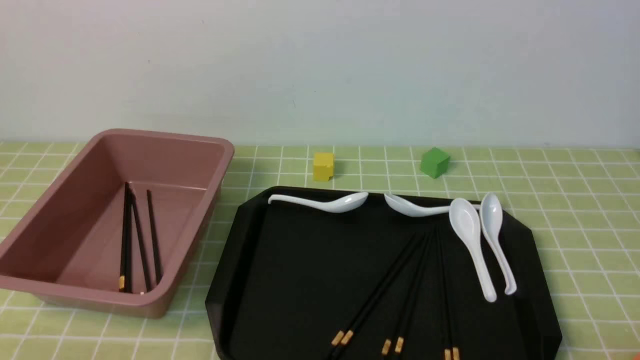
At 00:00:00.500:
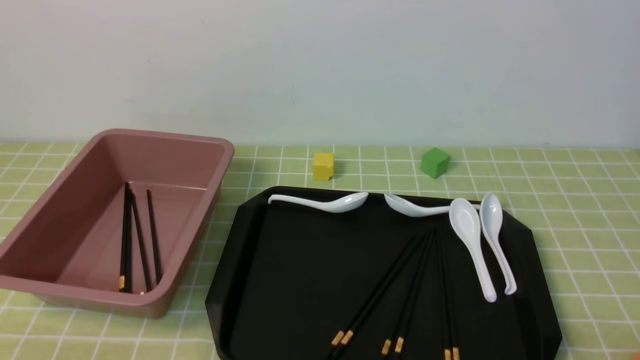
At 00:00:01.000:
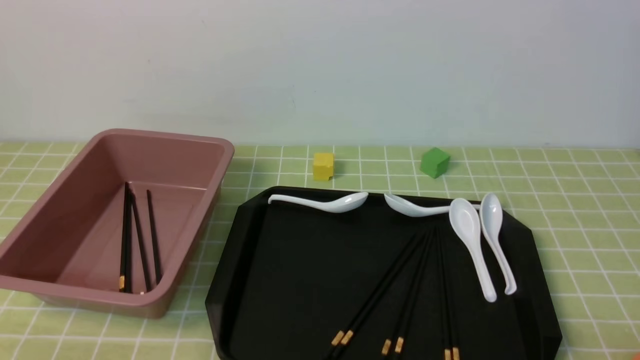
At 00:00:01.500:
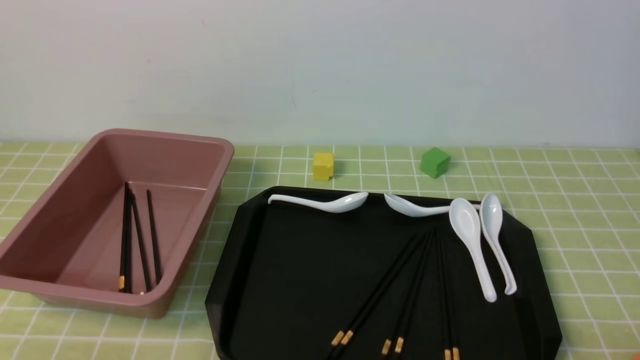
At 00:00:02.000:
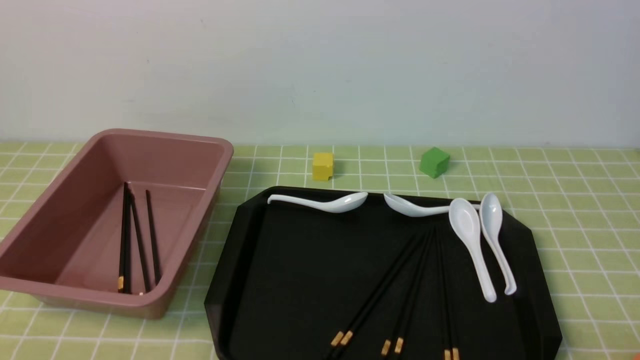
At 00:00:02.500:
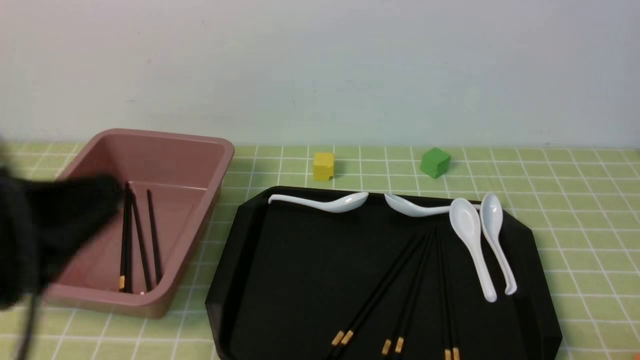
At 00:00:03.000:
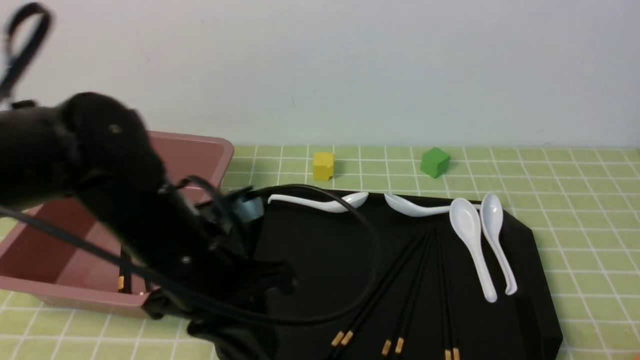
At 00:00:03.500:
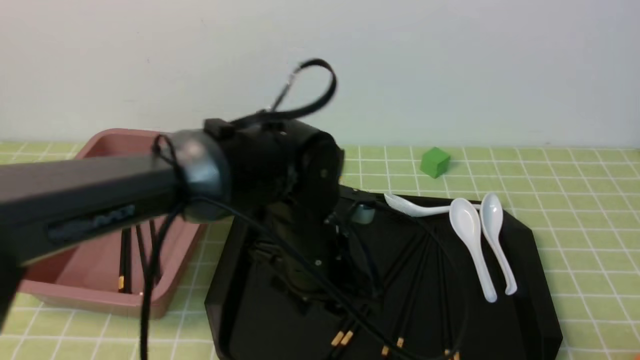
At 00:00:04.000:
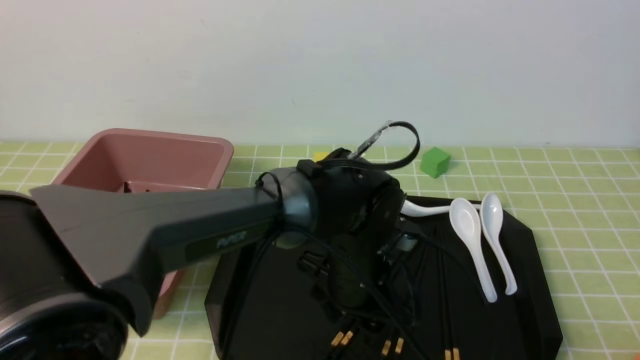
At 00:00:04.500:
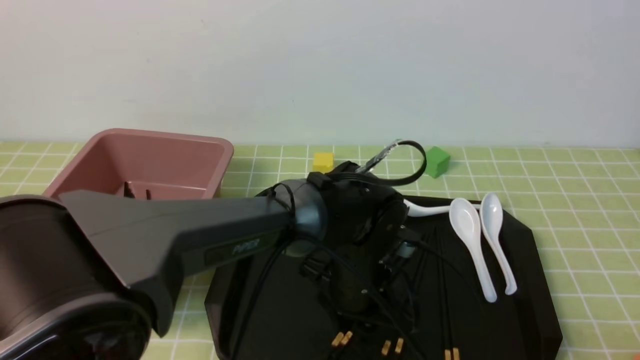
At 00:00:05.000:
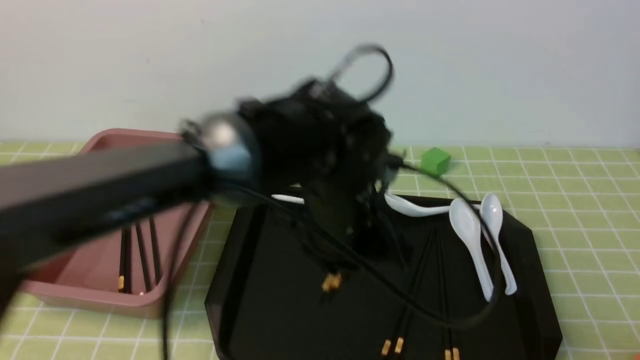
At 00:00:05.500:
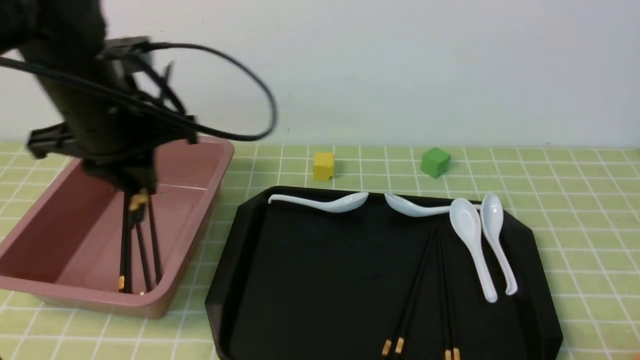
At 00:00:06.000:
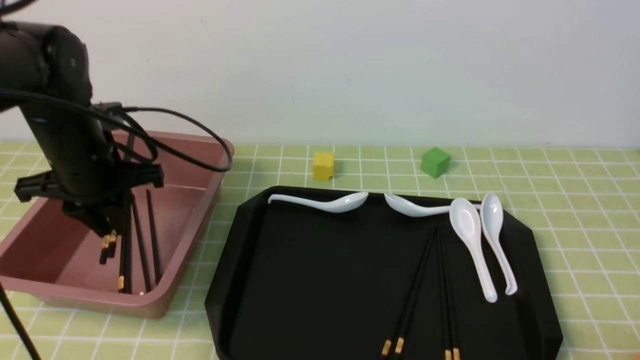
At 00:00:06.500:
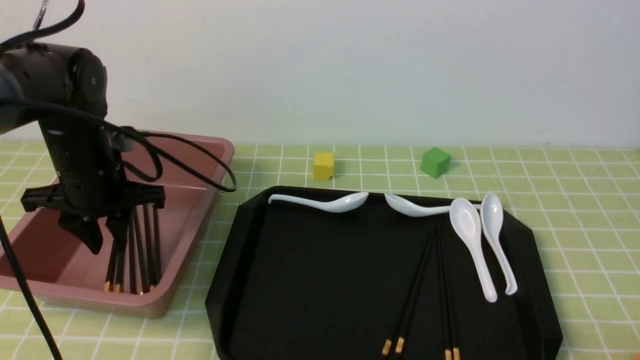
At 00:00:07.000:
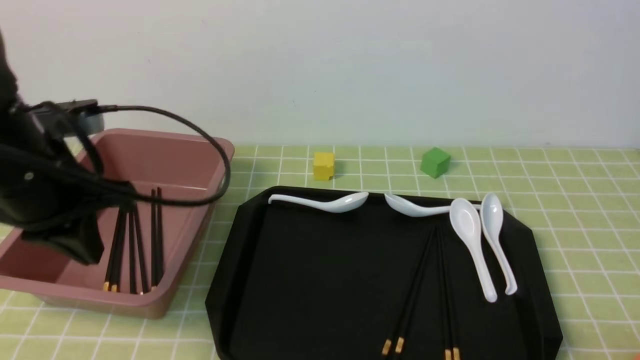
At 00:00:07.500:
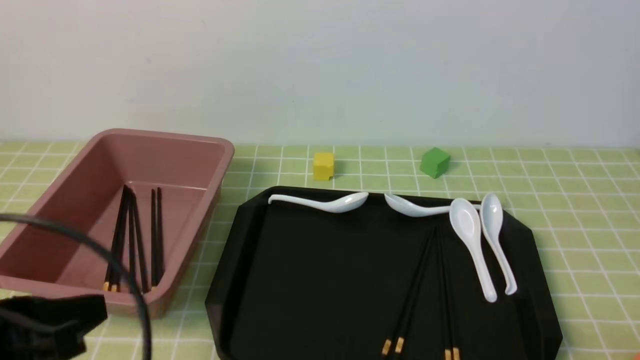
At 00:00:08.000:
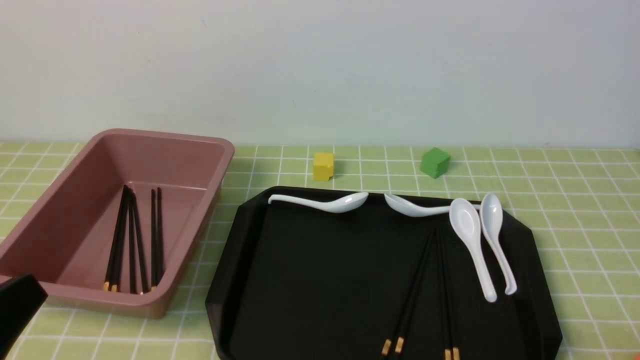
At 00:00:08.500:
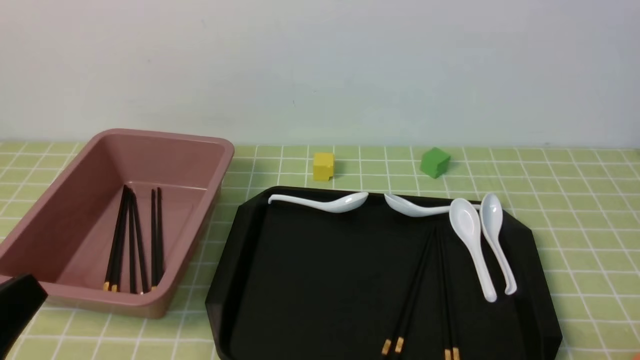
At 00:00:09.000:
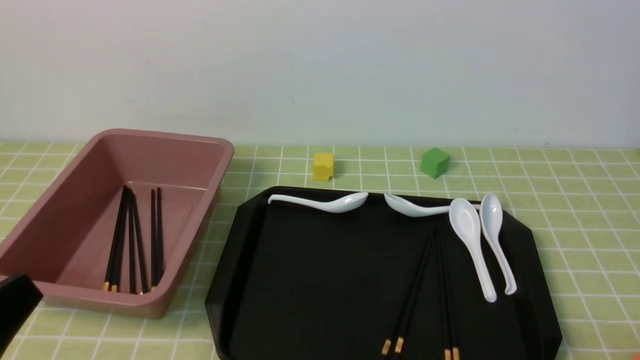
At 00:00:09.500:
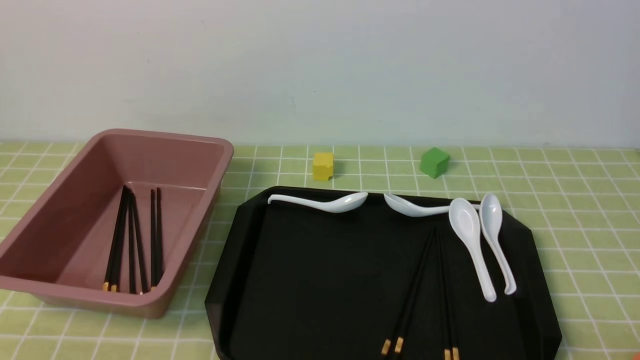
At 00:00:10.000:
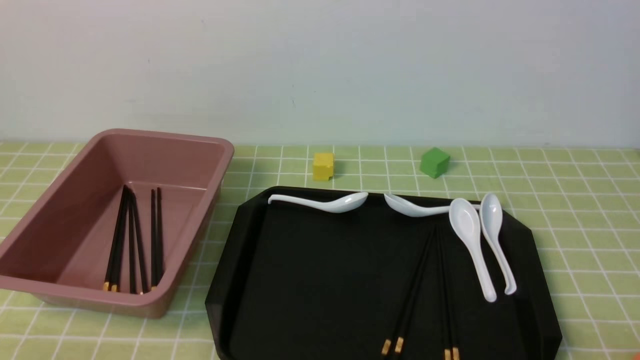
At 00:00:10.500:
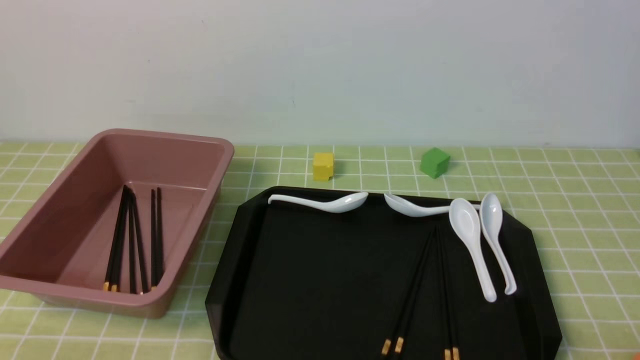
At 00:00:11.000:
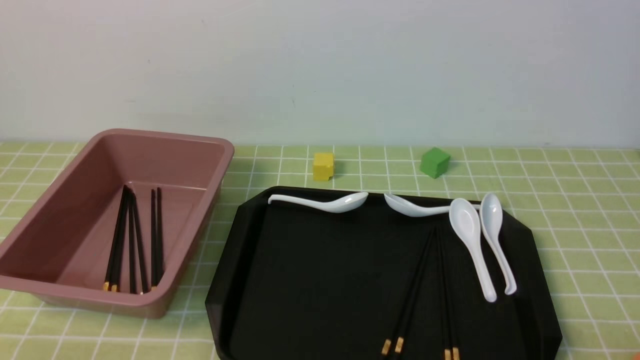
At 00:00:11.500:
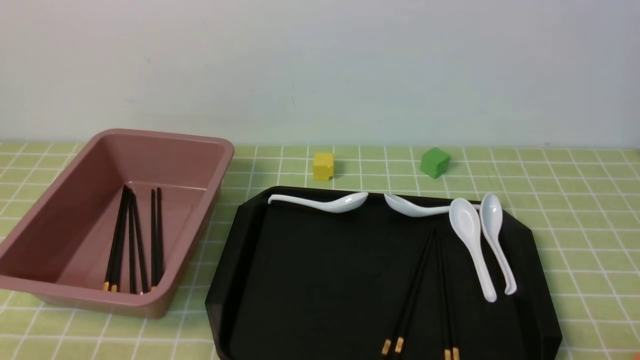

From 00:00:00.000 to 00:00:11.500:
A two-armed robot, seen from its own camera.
Step, from 00:00:00.000 to 00:00:05.000: use the left arm to grab a pair of chopsticks.
Step, from 00:00:05.500 to 00:00:06.500: use the left arm to put the chopsticks into the lunch box.
From 00:00:02.000 to 00:00:04.000: The left gripper moves to the right and forward, approximately 40 cm, and opens up.
From 00:00:04.000 to 00:00:06.000: The left gripper goes roughly 25 cm to the left, and closes up.
From 00:00:06.000 to 00:00:07.500: The left gripper moves backward, some 20 cm.
From 00:00:07.500 to 00:00:09.500: The left gripper shifts roughly 10 cm backward and downward.

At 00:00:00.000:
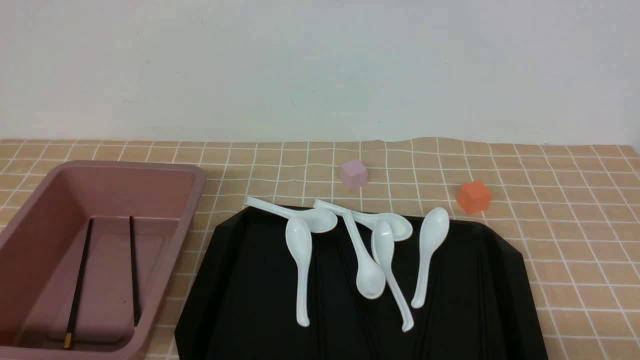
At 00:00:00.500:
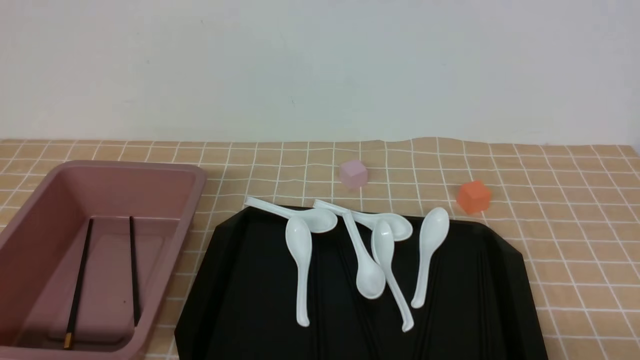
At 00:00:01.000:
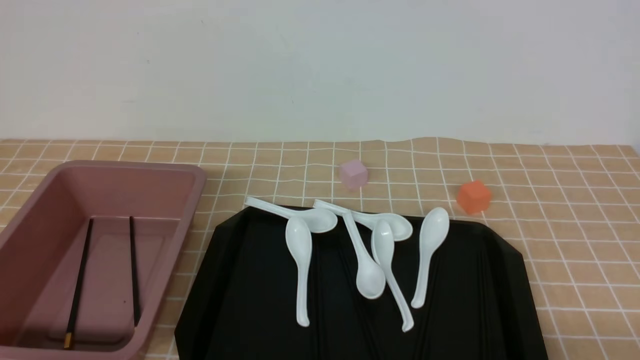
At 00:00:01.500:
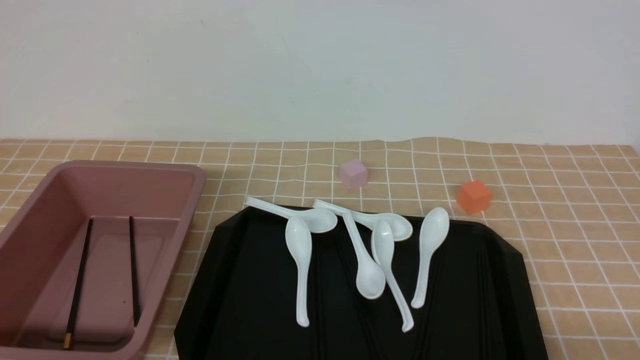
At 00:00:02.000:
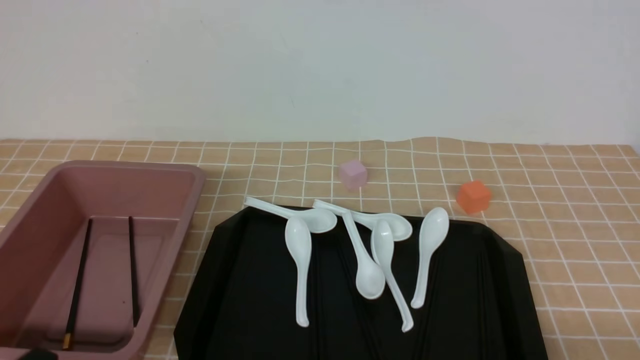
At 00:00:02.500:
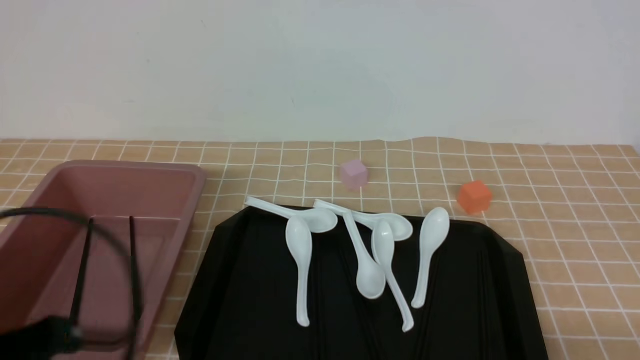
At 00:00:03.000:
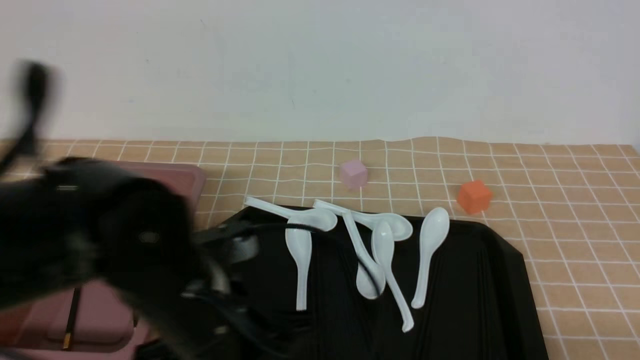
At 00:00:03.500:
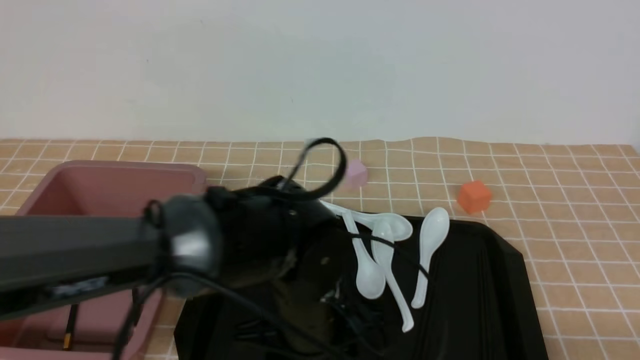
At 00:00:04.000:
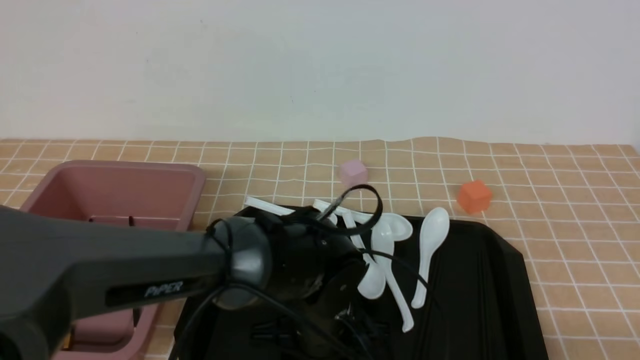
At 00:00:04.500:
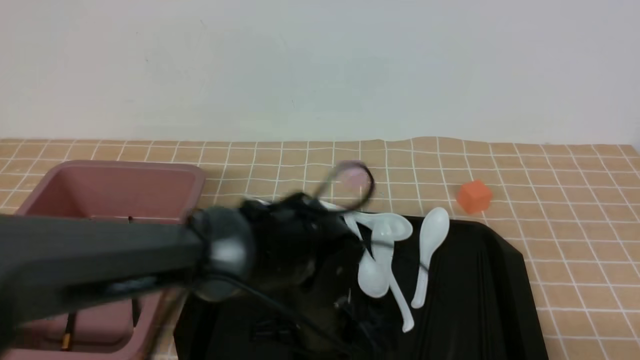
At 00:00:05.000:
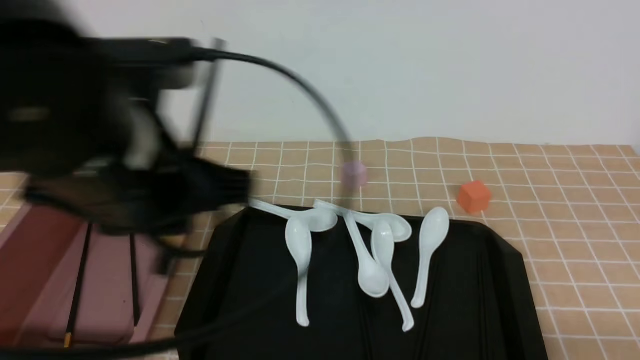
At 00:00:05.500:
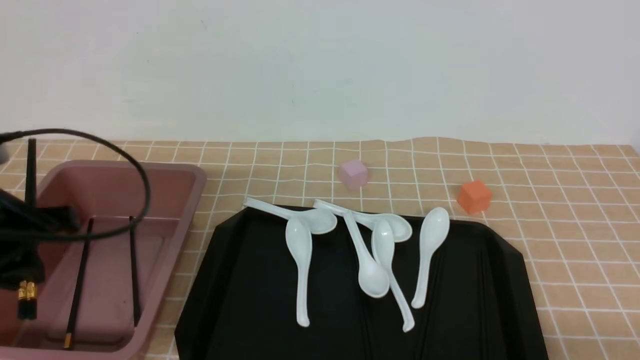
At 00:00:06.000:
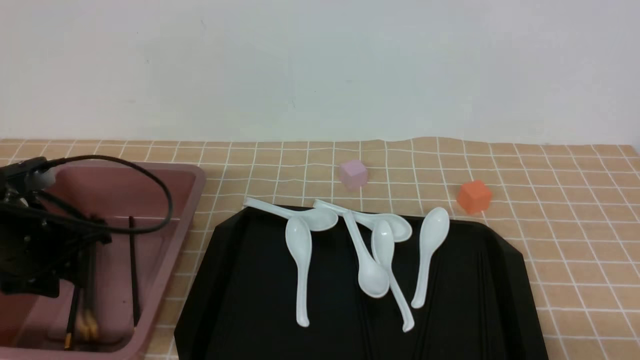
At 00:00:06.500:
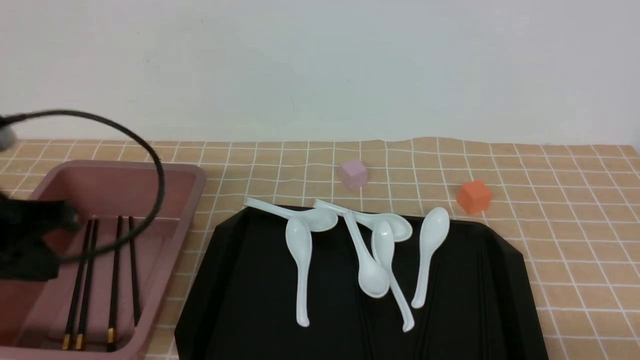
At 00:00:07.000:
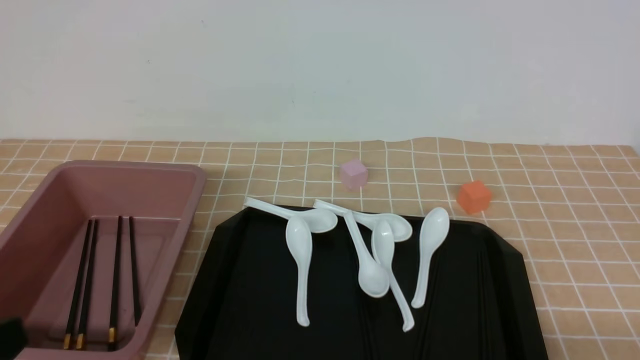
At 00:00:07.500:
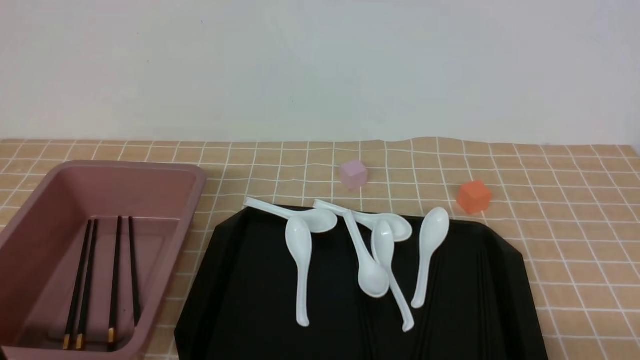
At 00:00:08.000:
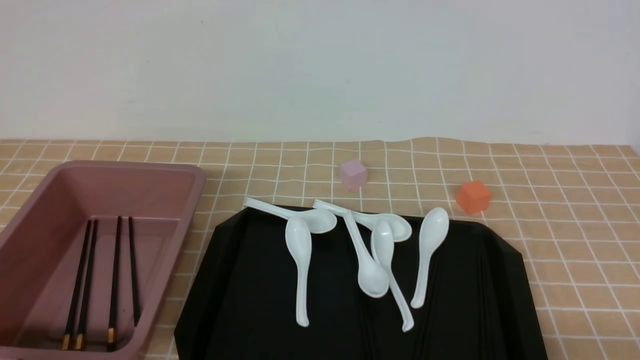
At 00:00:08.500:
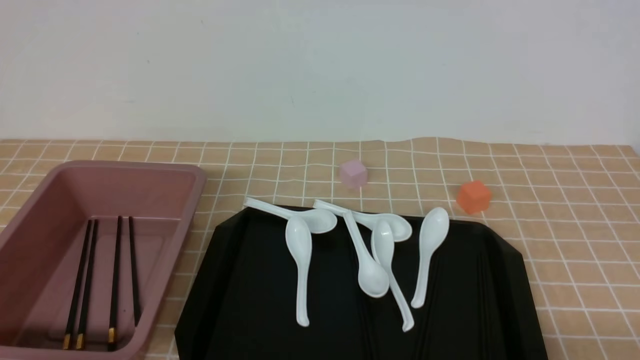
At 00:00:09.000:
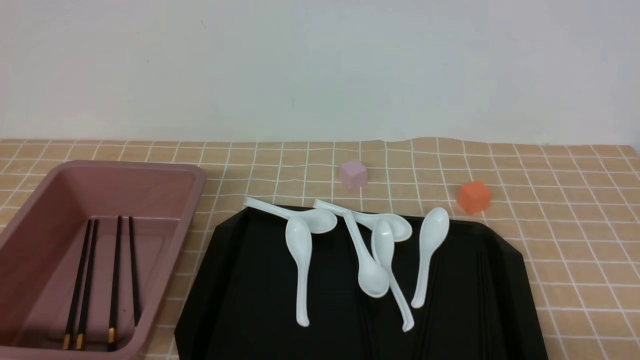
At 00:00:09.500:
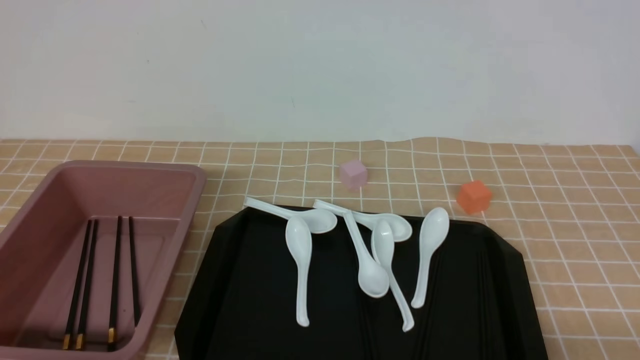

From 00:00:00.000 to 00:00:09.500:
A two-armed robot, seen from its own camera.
Step, from 00:00:00.000 to 00:00:04.500: use the left arm to grab a pair of chopsticks.
Step, from 00:00:05.000 to 00:00:06.000: use the left arm to put the chopsticks into the lunch box.
From 00:00:02.000 to 00:00:04.000: The left gripper moves to the right and forward, about 30 cm, and opens its fingers.
From 00:00:04.000 to 00:00:05.500: The left gripper travels to the left and upward by some 30 cm, and closes up.
From 00:00:05.500 to 00:00:07.500: The left gripper moves backward, some 20 cm.
